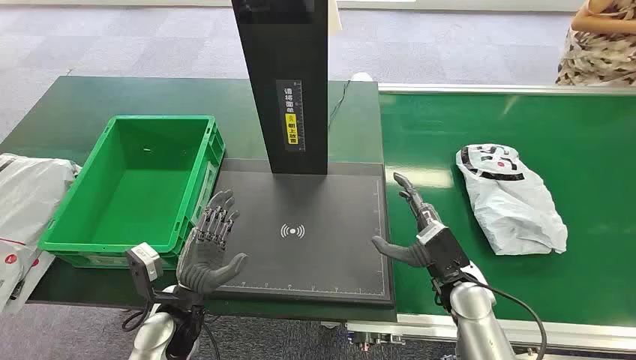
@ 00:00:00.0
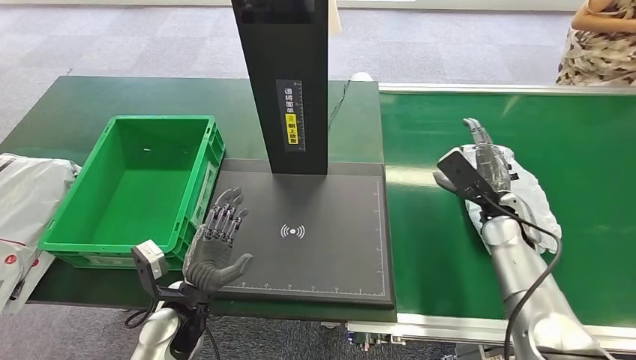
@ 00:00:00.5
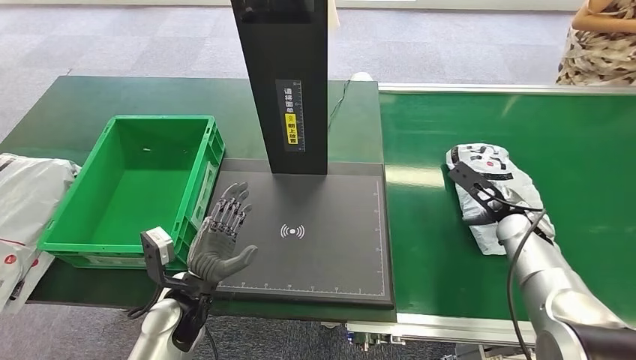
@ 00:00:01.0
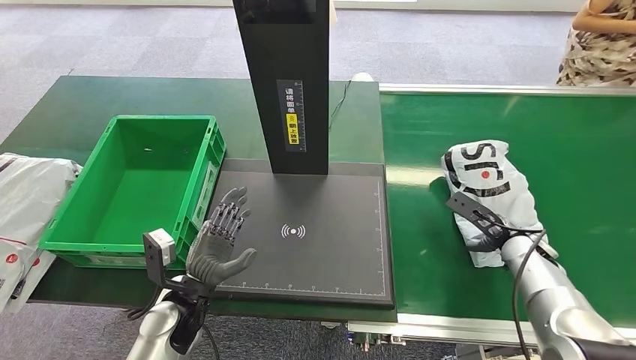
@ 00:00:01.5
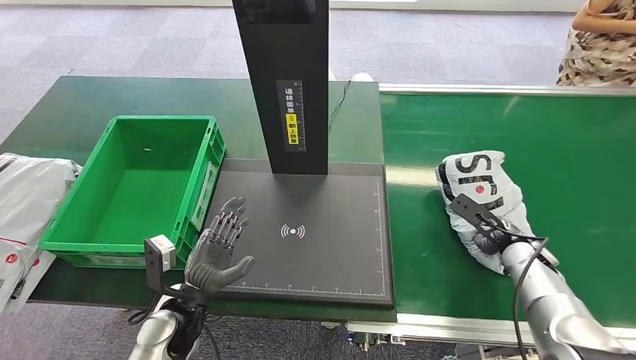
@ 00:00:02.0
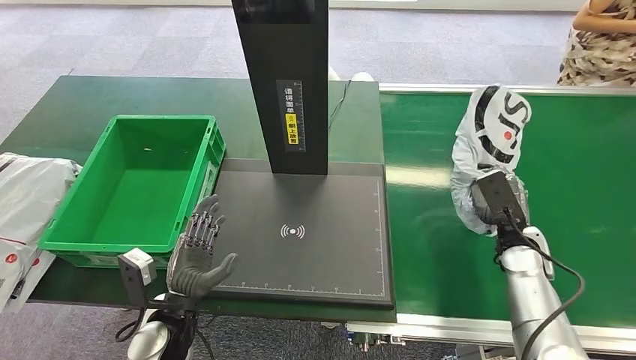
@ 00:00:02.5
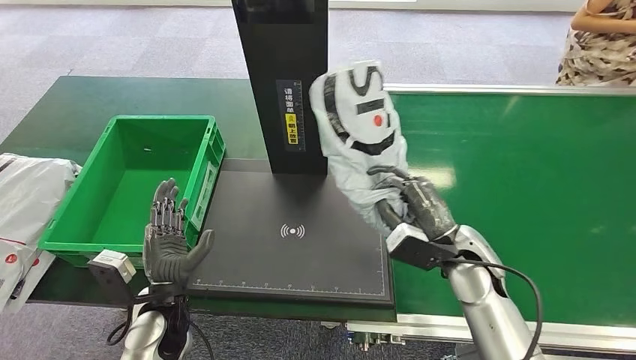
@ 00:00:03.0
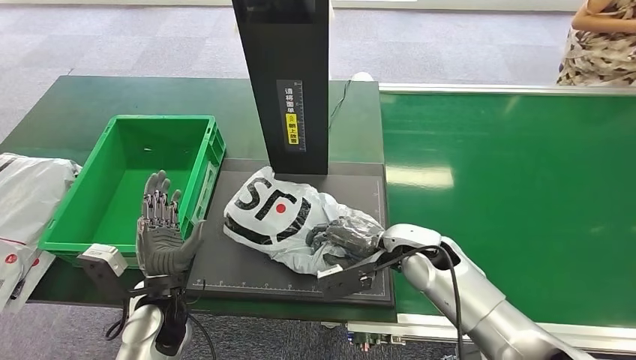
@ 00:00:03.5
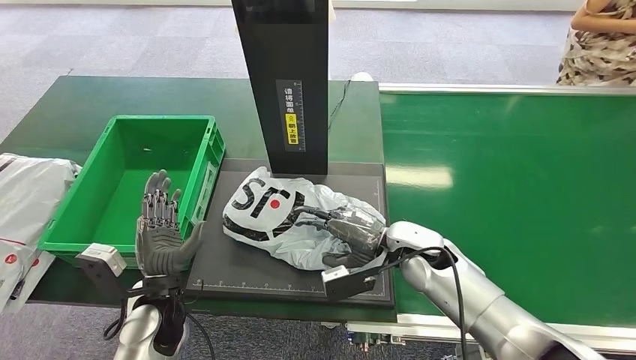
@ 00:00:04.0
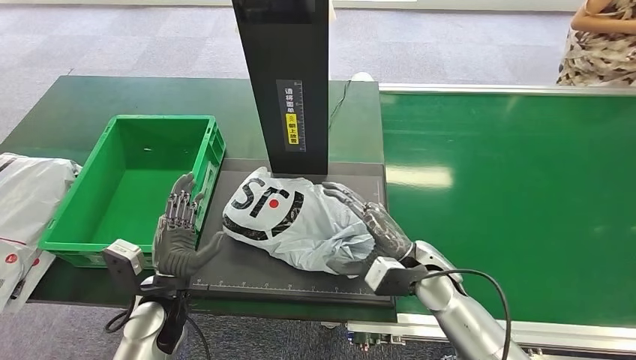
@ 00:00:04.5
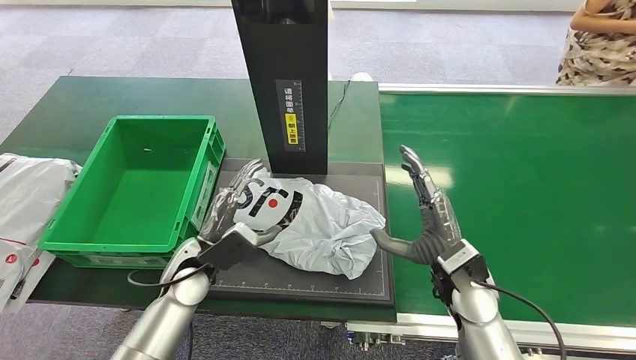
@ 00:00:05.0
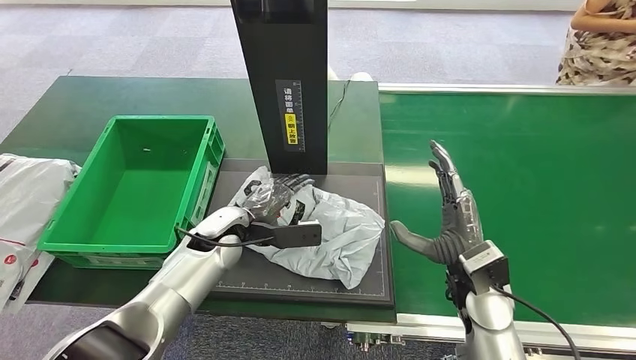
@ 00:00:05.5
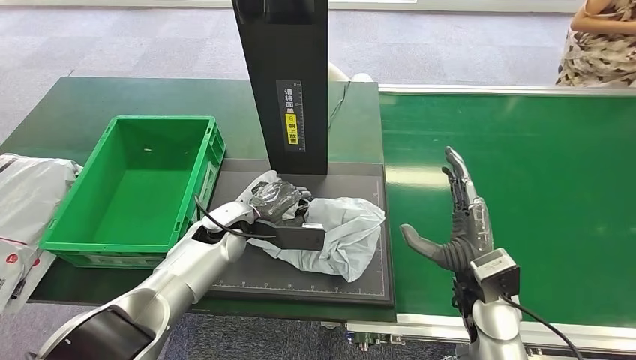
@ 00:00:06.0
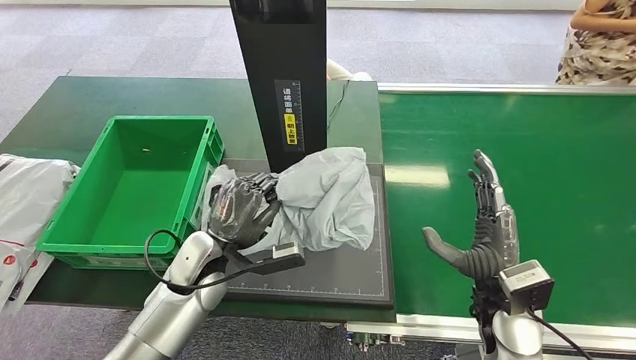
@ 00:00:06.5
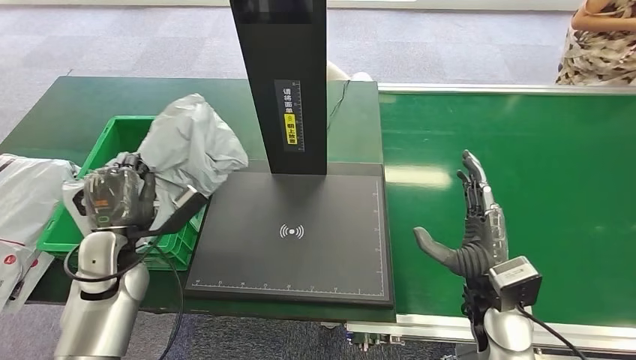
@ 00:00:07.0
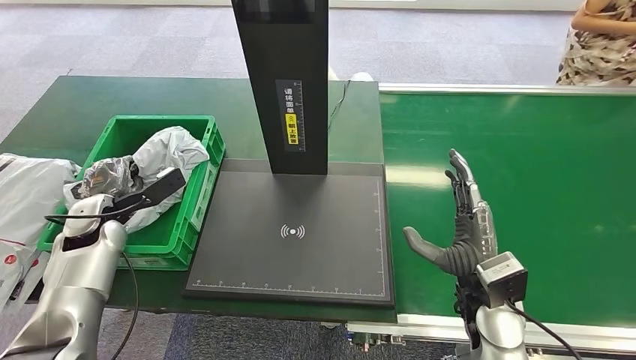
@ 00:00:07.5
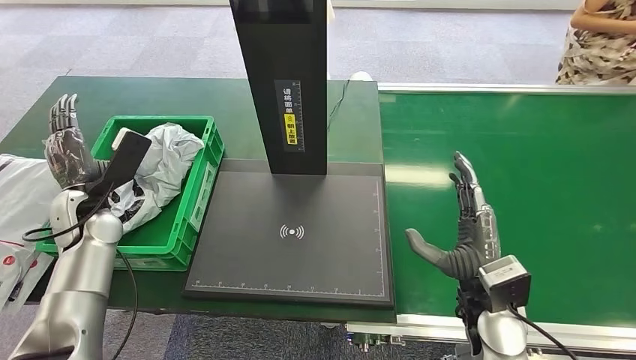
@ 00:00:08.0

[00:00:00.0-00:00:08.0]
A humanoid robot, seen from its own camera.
Step, 00:00:00.0 to 00:00:02.5: Pick up the package from the conveyor belt.
Step, 00:00:03.0 to 00:00:04.5: Place the package onto the inbound machine.
Step, 00:00:05.0 to 00:00:06.5: Pick up the package from the inbound machine.
Step, 00:00:07.0 to 00:00:08.0: Place the package into the parcel locker.
00:00:04.0 to 00:00:06.0: The left hand shifts about 15 cm forward and to the right. Meanwhile the right hand goes some 10 cm backward and to the right.
